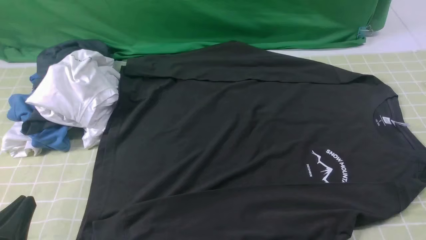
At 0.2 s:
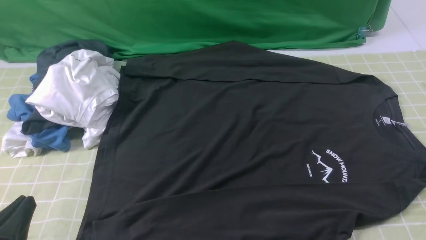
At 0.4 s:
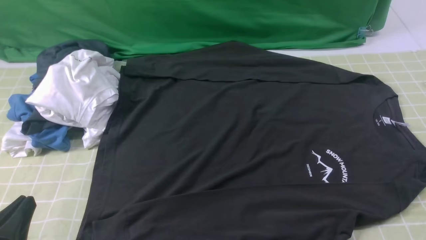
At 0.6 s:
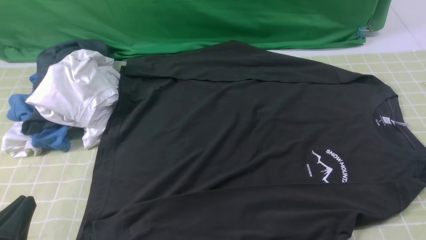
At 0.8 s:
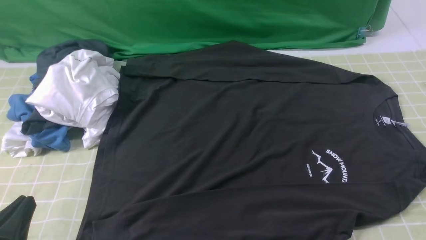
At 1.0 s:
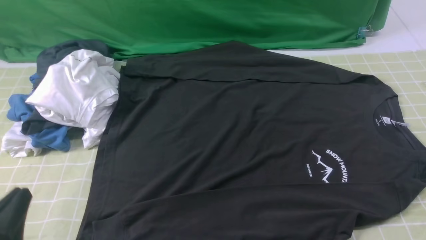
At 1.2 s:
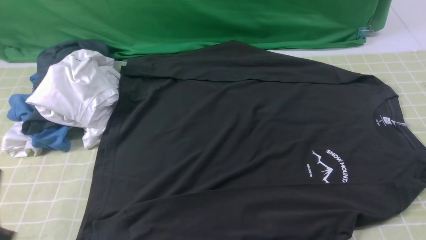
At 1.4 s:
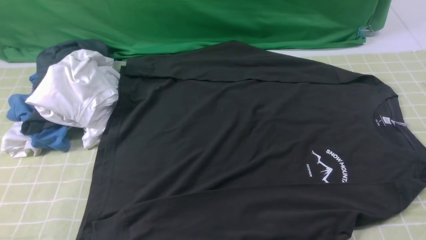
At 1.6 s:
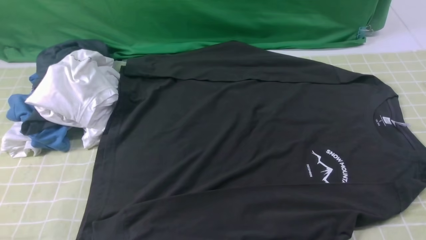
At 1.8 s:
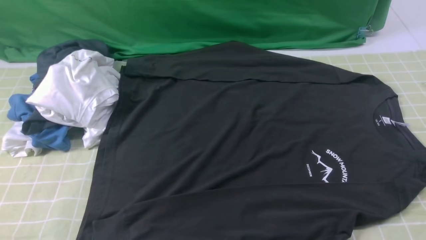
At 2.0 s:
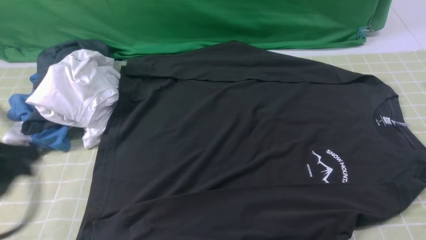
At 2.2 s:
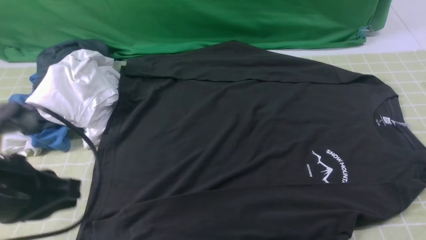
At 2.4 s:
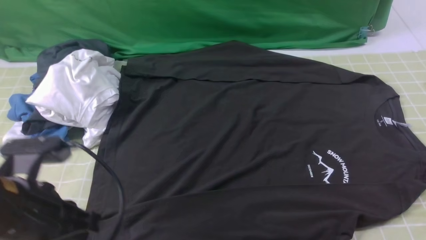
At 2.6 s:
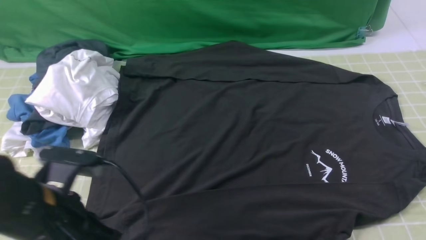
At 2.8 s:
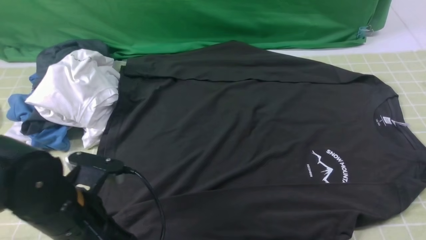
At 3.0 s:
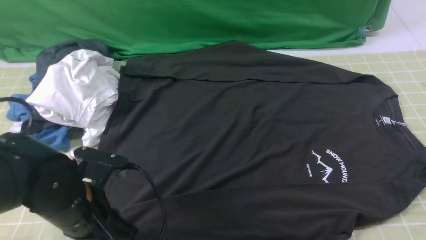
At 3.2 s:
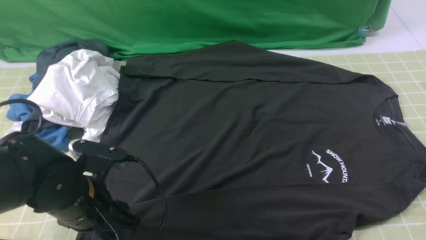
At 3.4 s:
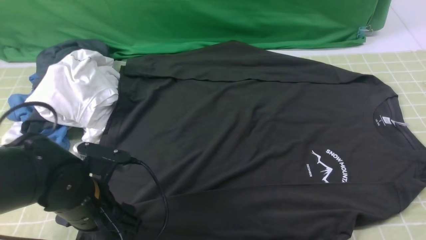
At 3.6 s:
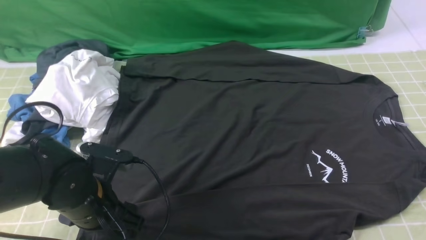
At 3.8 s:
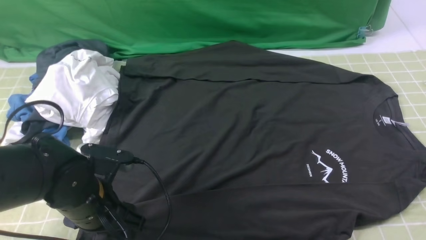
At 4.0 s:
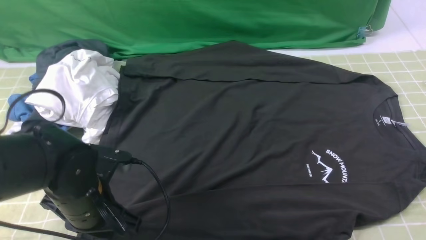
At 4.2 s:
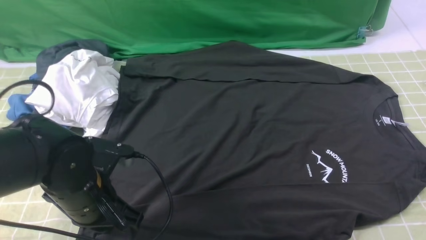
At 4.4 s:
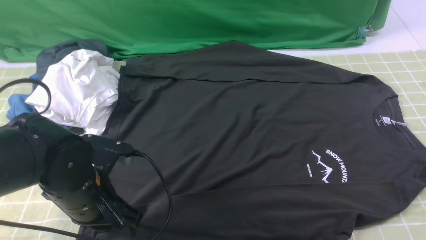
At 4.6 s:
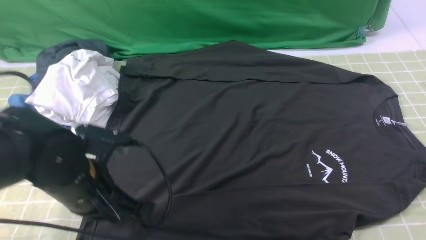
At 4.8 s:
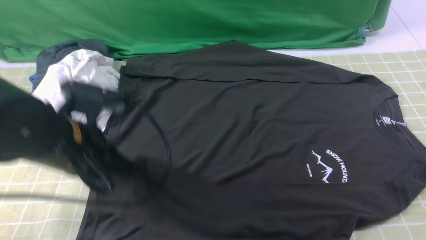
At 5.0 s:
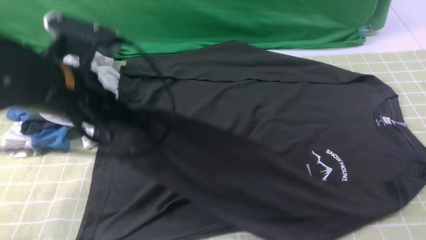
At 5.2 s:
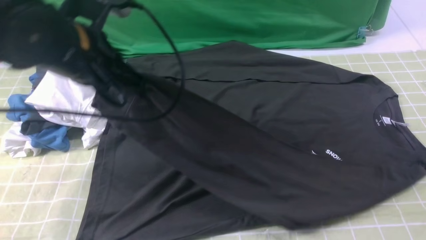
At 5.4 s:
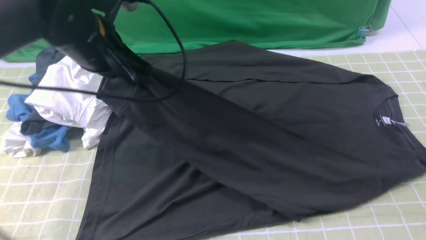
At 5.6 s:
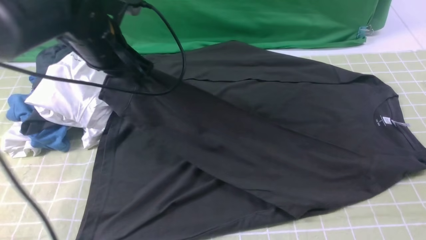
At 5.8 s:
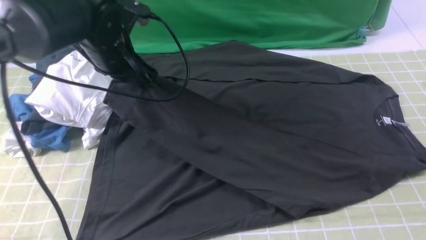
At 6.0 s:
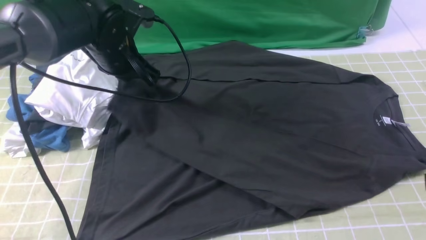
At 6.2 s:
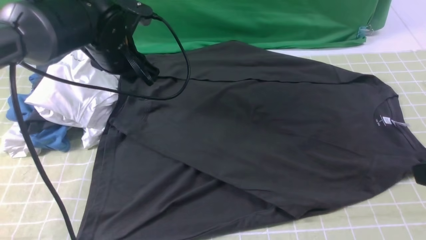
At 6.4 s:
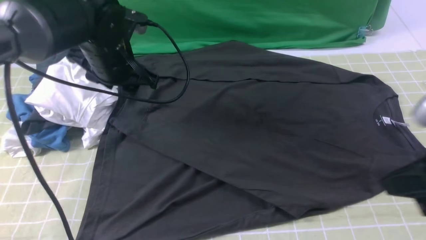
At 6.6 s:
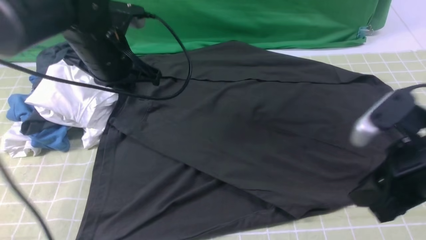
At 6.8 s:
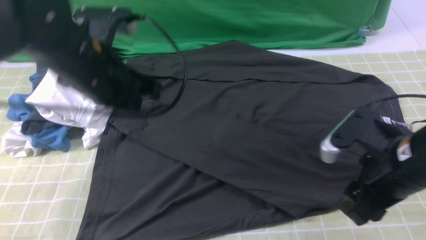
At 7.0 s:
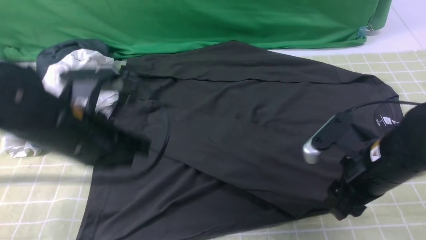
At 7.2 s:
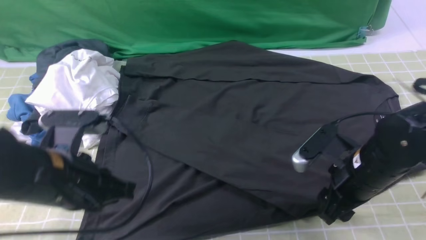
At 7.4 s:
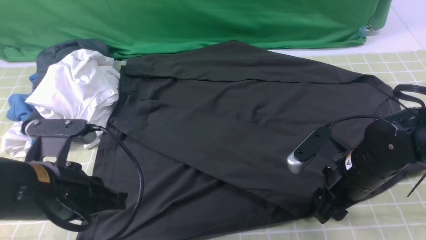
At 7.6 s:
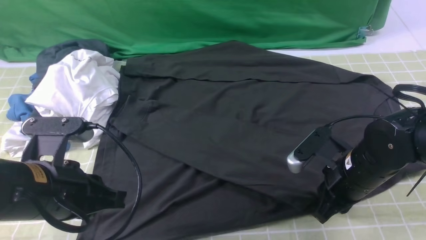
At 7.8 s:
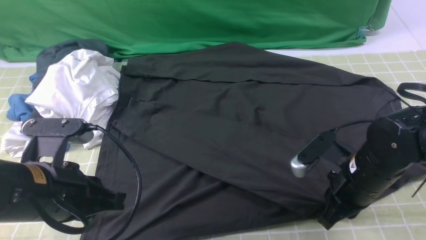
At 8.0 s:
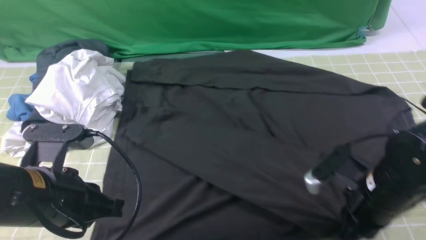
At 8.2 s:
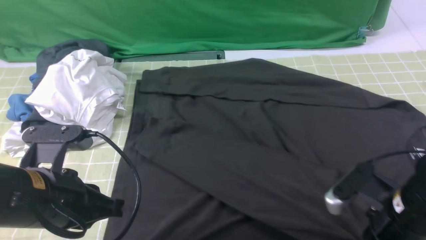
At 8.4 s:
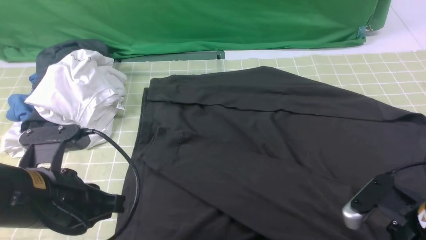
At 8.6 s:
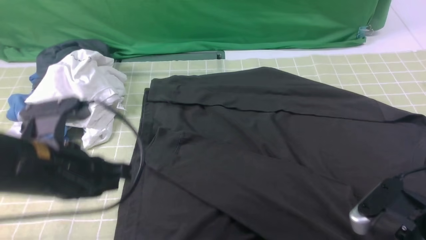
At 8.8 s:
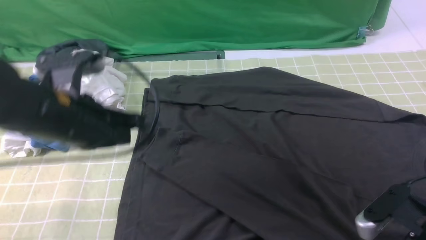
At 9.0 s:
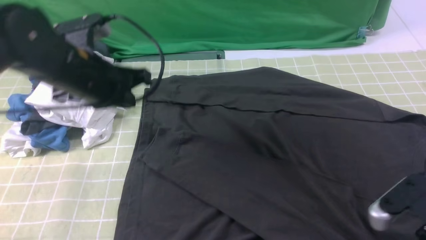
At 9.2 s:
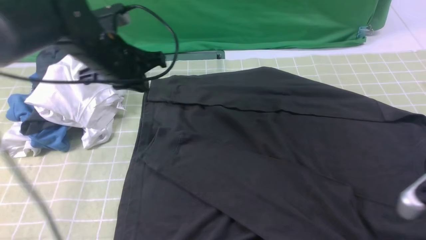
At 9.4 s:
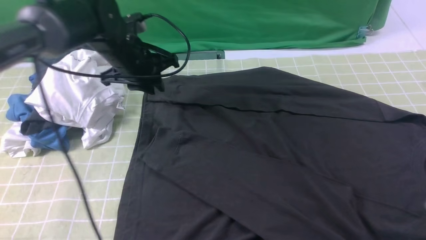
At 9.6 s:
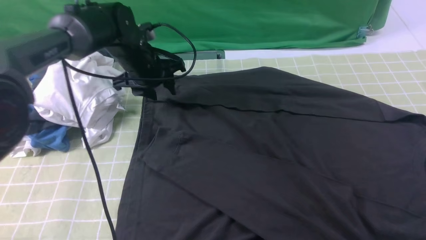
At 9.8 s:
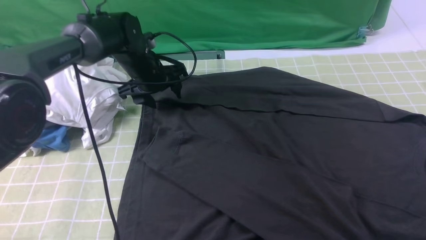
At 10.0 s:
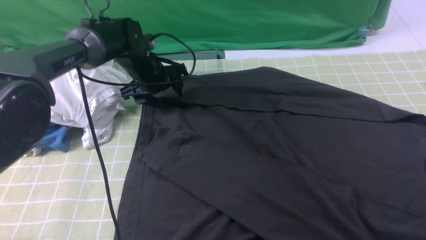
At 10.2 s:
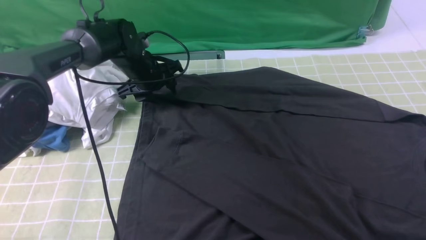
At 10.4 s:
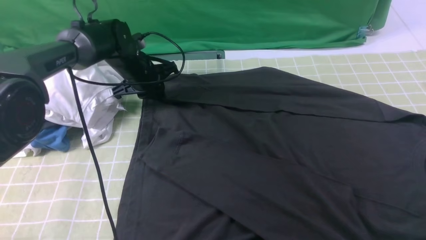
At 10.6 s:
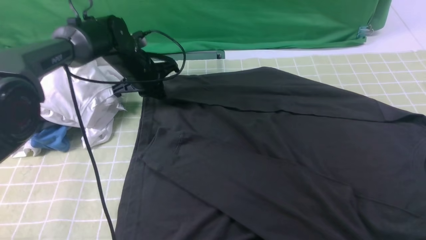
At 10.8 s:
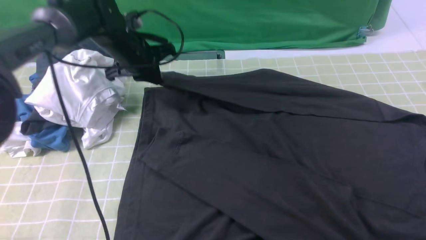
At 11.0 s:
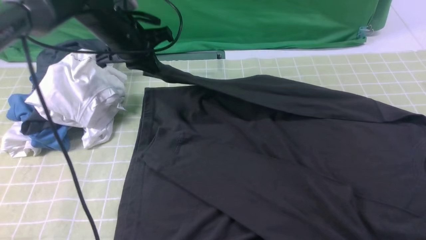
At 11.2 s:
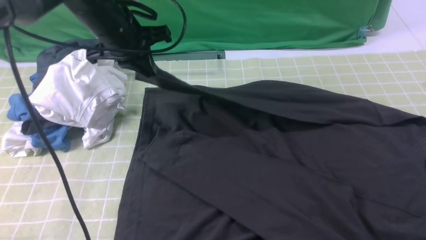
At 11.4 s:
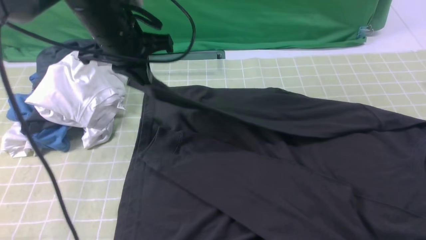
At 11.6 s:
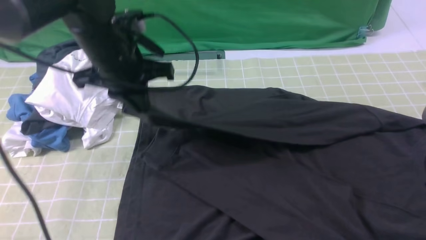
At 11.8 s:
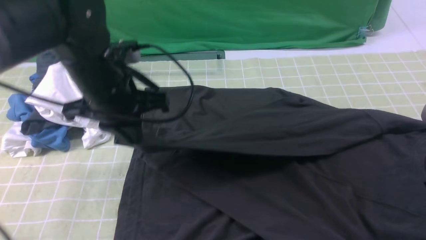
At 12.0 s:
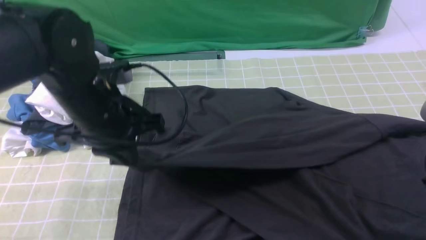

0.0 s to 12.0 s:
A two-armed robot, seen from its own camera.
Step, 0.0 to 4.0 s: use the left arm to clamp the cuff closest to it.
Step, 4.2 to 6.2 s: use the left arm to drag and place the cuff at the centered position on the left edge of the fabric.
Step, 6.4 to 10.4 s: use the left arm to clamp the cuff farthest from it.
0.0 to 1.6 s: The left gripper heads upward, covering about 10 cm.
1.6 to 3.0 s: The left gripper moves forward, downward and to the right, approximately 20 cm, and opens up.
3.0 to 4.4 s: The left gripper closes up.
4.4 to 6.0 s: The left gripper shifts roughly 20 cm forward and upward.
6.0 to 7.6 s: The left gripper heads backward, covering about 25 cm, while the right gripper goes about 25 cm downward, forward and to the left, and opens and closes again.
7.6 to 9.0 s: The left gripper heads forward, covering about 15 cm. Meanwhile the right gripper travels backward, upward and to the right by some 15 cm, and opens up.
9.0 to 10.4 s: The right gripper ends up roughly 5 cm from where it was. The left gripper shifts some 20 cm forward and downward, and opens, then closes once more.
10.4 to 12.0 s: The left gripper is displaced backward and upward by roughly 25 cm, while the right gripper goes some 5 cm forward, and closes.

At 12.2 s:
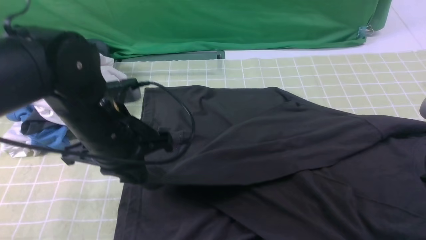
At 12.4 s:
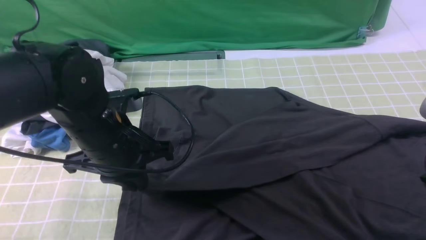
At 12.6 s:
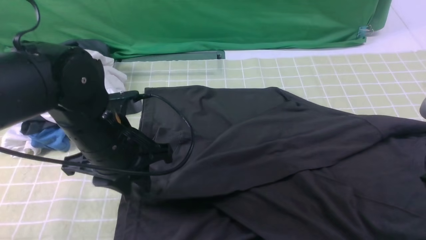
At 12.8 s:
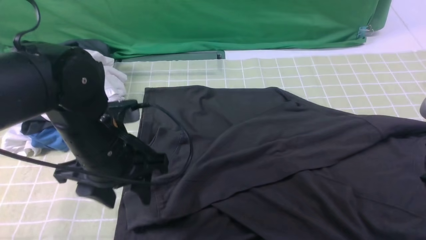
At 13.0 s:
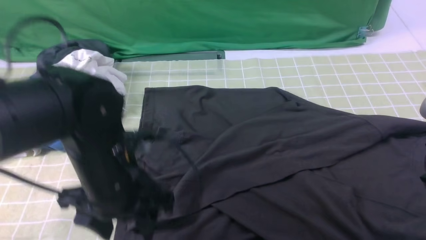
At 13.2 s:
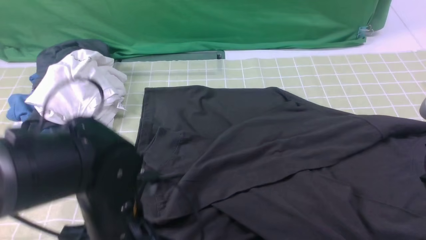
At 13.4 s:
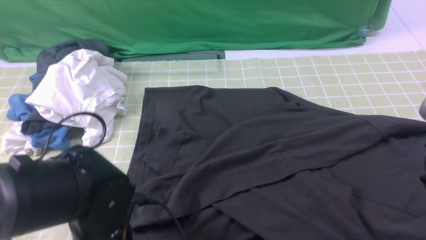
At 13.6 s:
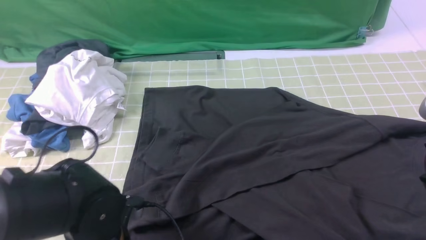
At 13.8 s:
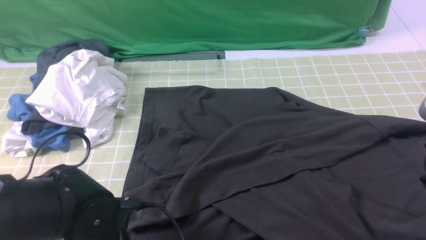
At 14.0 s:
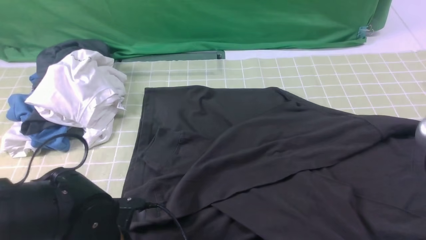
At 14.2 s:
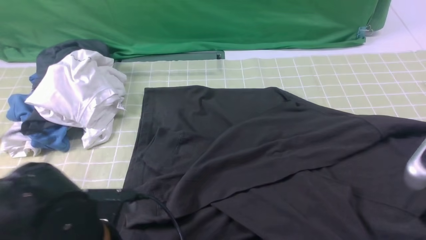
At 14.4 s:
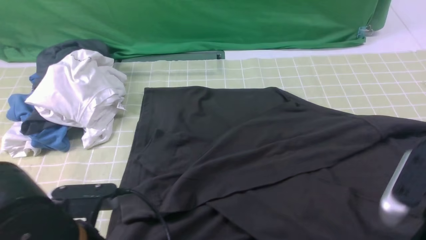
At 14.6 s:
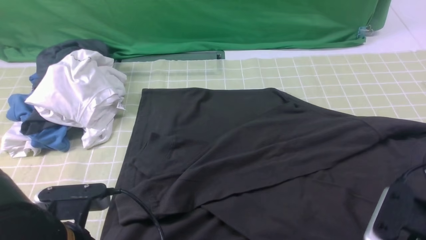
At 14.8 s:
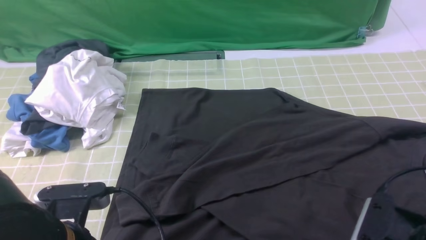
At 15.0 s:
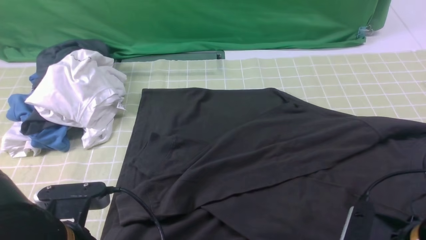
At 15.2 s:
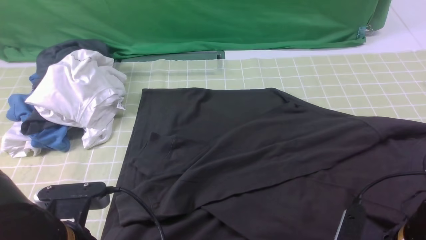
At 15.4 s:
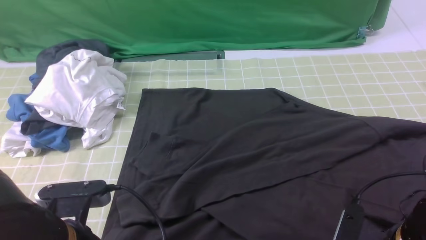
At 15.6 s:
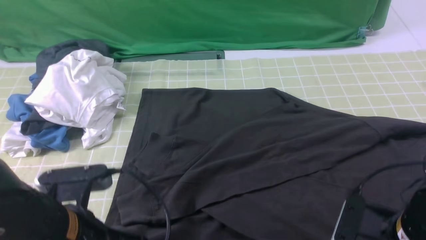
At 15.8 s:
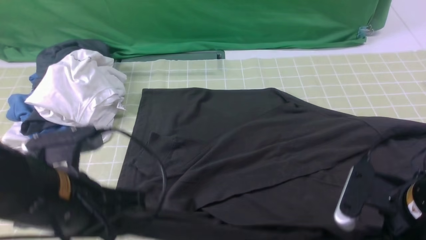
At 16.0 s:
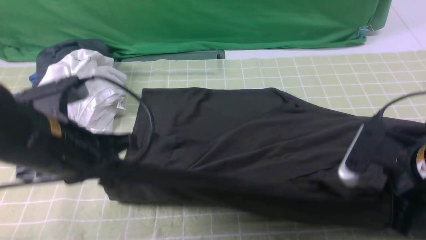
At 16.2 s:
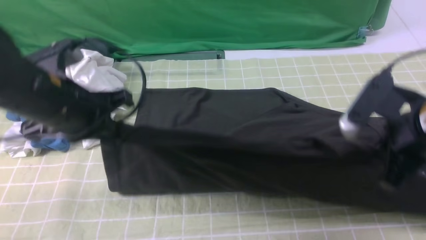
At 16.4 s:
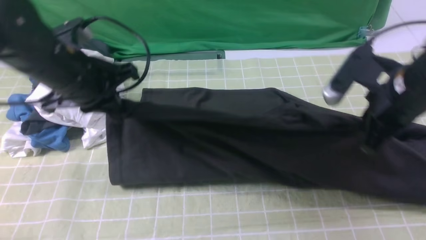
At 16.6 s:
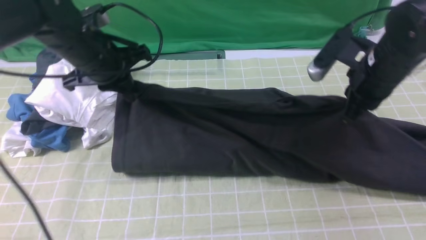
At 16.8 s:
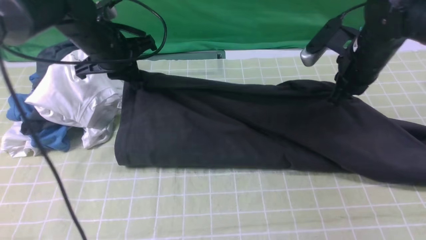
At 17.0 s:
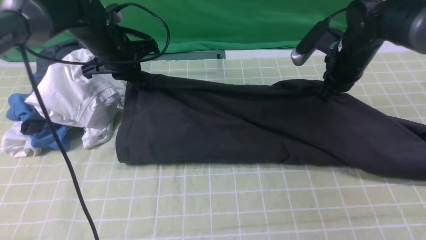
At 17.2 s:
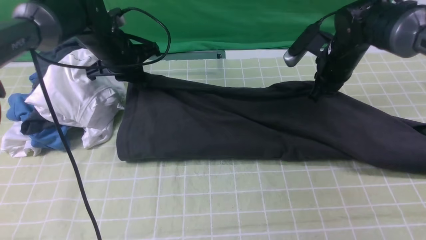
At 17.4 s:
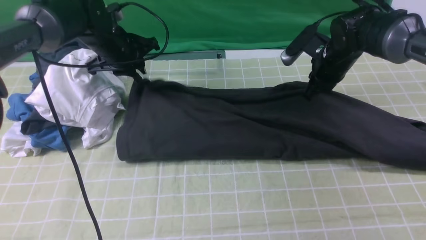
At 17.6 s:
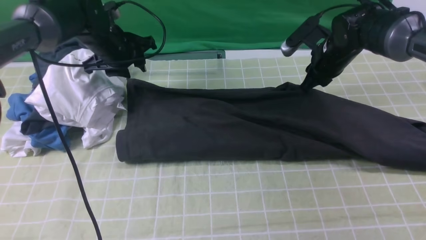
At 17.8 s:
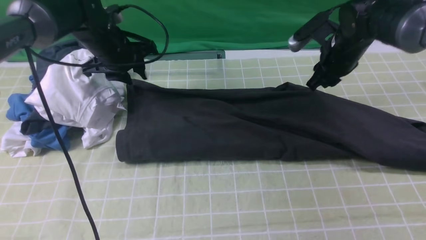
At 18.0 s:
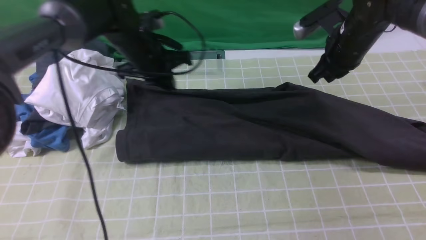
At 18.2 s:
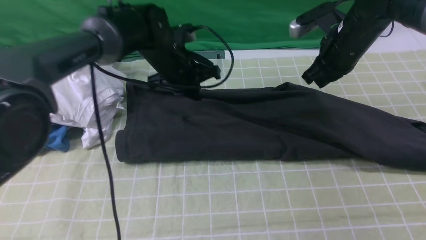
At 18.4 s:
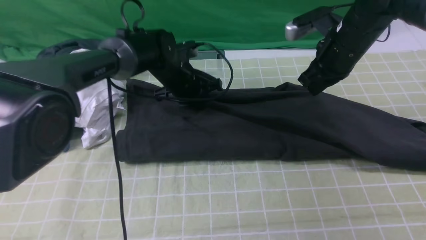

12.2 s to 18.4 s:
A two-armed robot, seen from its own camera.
Step, 13.0 to 15.4 s: use both arms simultaneously to clamp the lower edge of the clothing fabric.
Step, 15.6 to 17.6 s: use both arms to drag the lower edge of the fabric forward and fold it over the upper edge.
12.2 to 13.8 s: The left gripper moves backward and downward, approximately 15 cm, and opens up.
13.8 to 15.4 s: The left gripper is displaced upward by some 5 cm, and closes up. Meanwhile the right gripper heads downward, covering about 15 cm, and opens, then closes once more.
15.4 to 16.8 s: The grippers both shift forward by about 30 cm.
16.8 to 18.4 s: The right gripper opens, then closes once more. The left gripper is displaced to the right and downward by approximately 15 cm, and opens and closes again.
